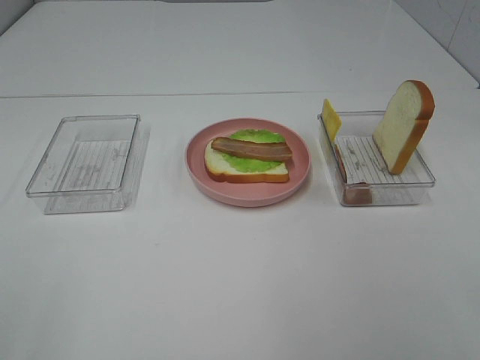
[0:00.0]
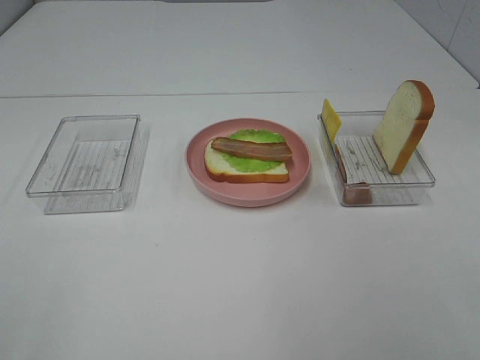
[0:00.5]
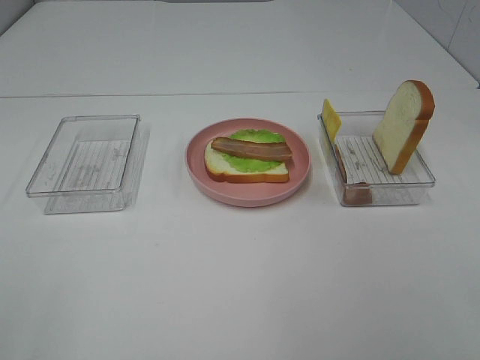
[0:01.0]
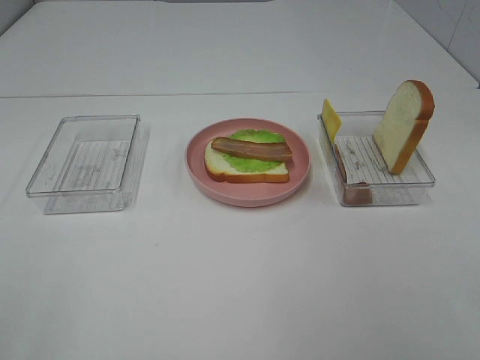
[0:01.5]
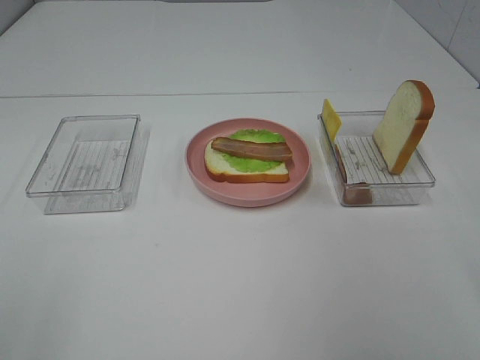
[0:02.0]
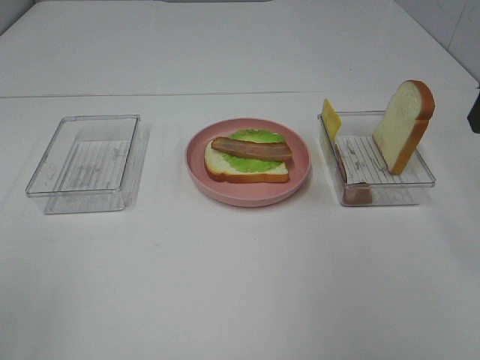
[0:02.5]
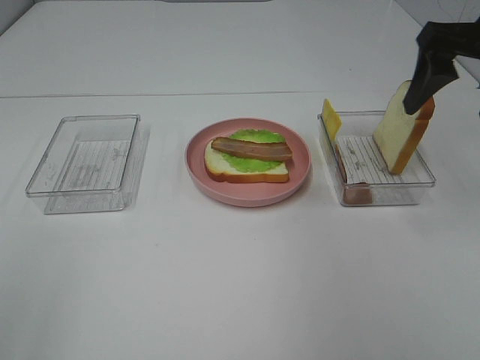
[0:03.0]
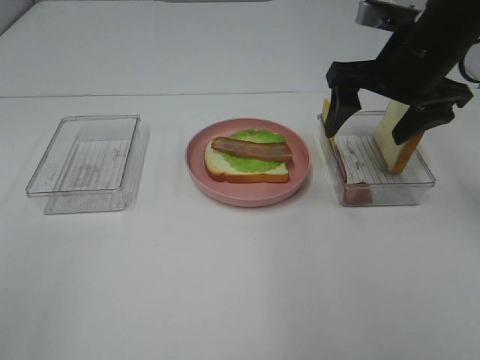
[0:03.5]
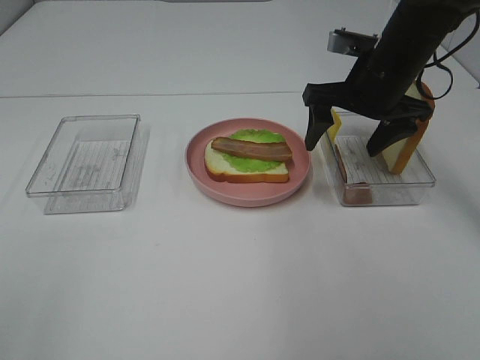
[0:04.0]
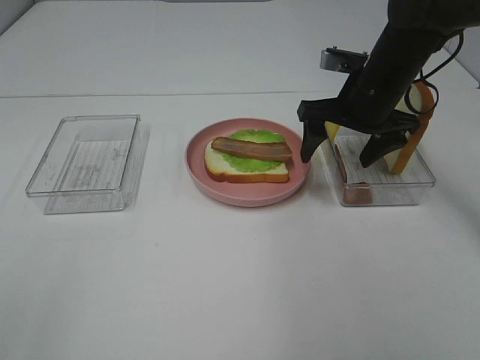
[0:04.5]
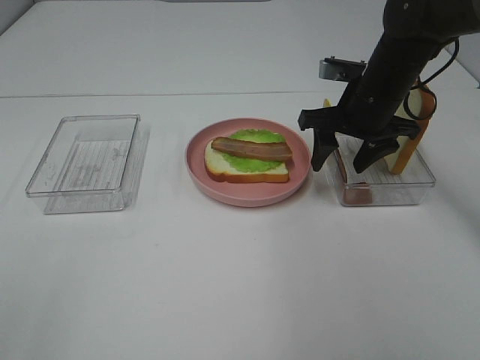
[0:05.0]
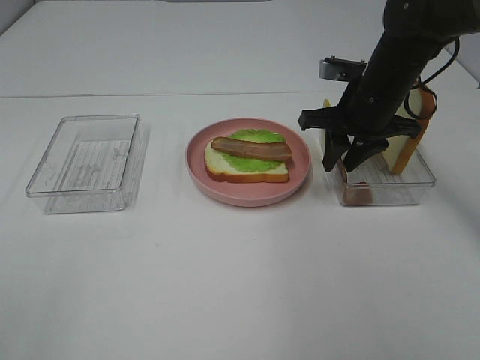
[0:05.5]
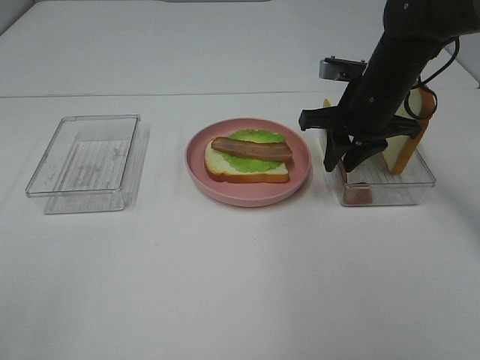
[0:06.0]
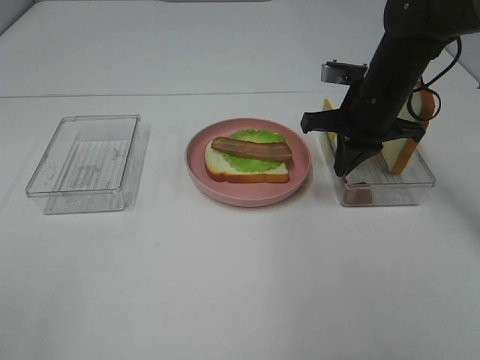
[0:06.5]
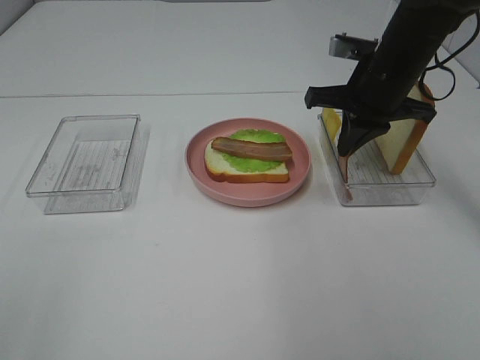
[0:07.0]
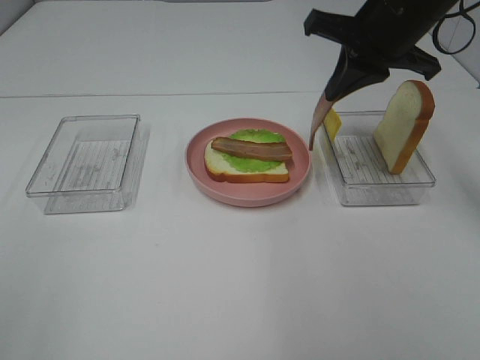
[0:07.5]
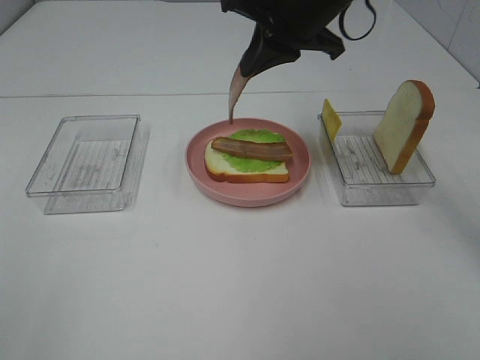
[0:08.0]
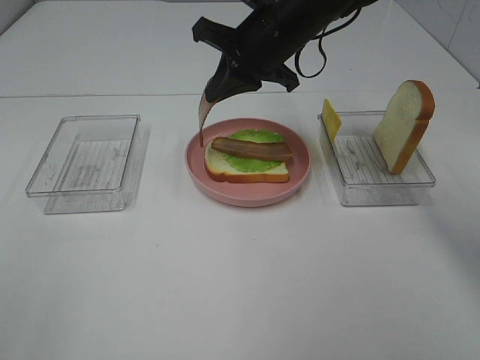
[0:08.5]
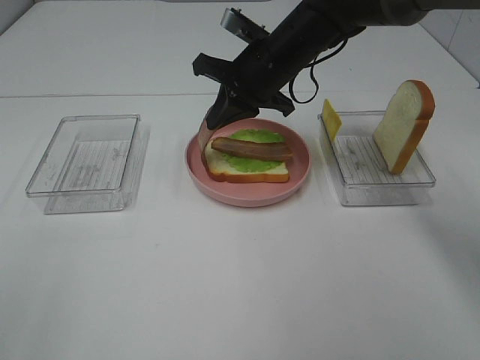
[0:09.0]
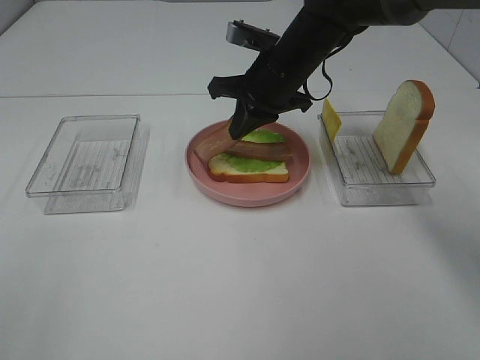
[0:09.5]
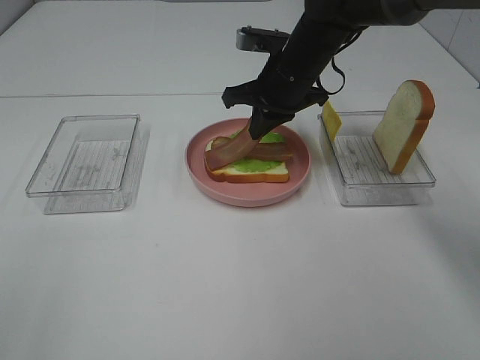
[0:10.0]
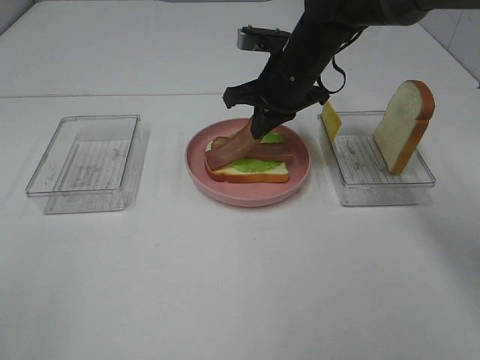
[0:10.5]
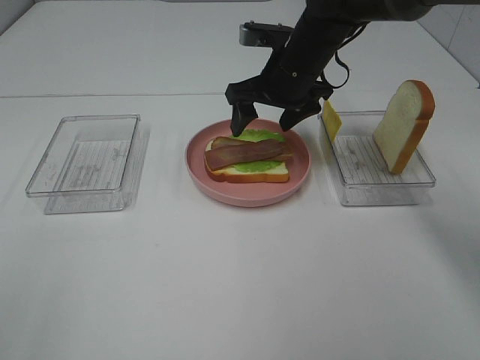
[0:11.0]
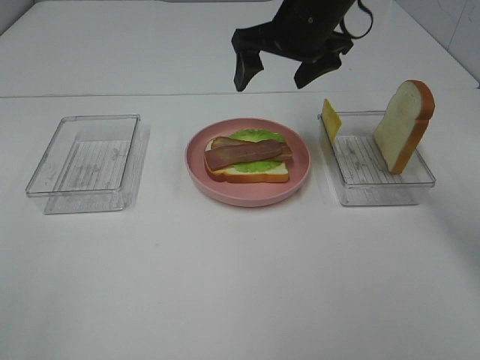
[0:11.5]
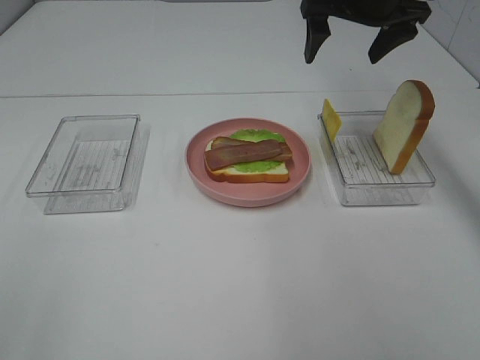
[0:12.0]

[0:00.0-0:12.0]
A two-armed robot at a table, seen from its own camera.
Task of the whole recording: Make sandwiches.
Step, 0:00.0 to 0:06.5: Right hand:grab the bacon.
Step, 0:07.0 to 0:11.0: Right hand:place bacon on bacon.
0:02.0 to 0:04.0: The right gripper goes roughly 30 cm forward, downward and to the left.
0:04.0 to 0:06.0: The right gripper closes.
0:06.0 to 0:08.0: The right gripper heads upward and to the left, covering some 15 cm.
0:08.0 to 0:10.0: The right gripper goes some 10 cm downward.
0:10.0 to 0:12.0: The right gripper is displaced upward and to the right by approximately 15 cm, and opens its fingers.

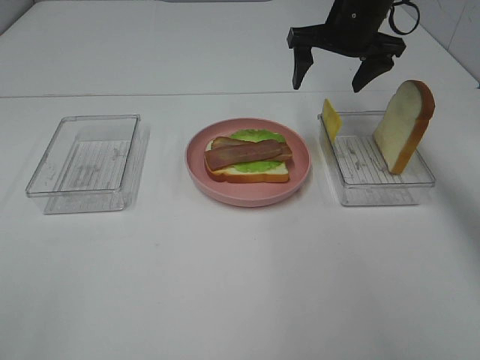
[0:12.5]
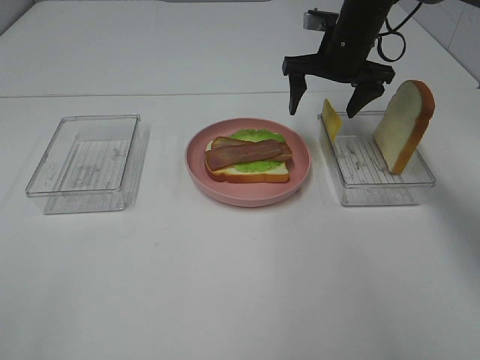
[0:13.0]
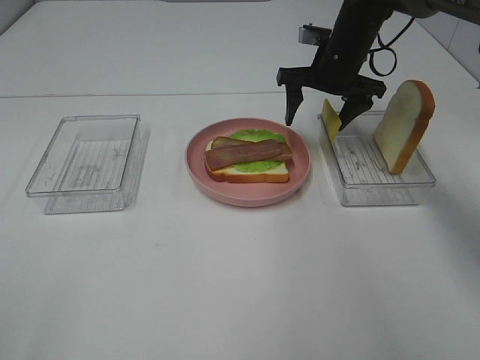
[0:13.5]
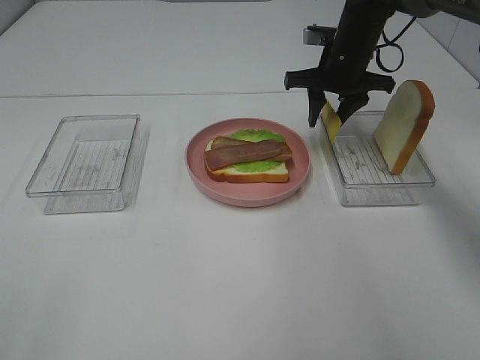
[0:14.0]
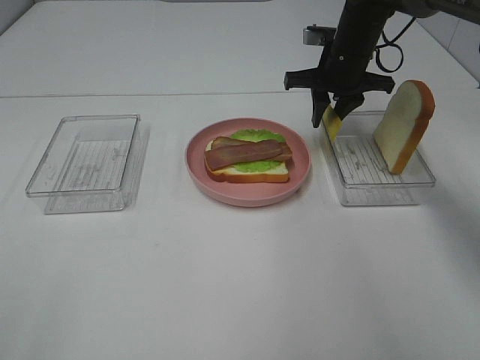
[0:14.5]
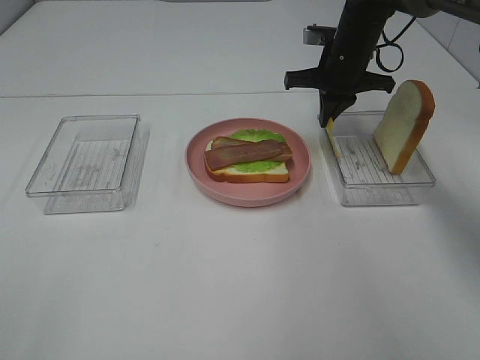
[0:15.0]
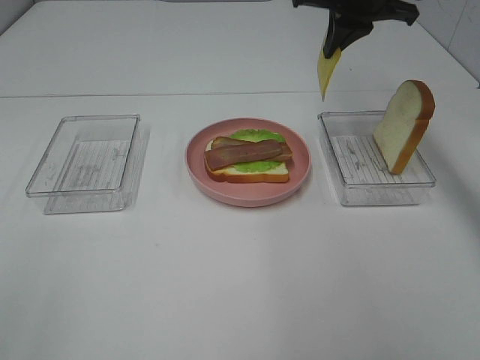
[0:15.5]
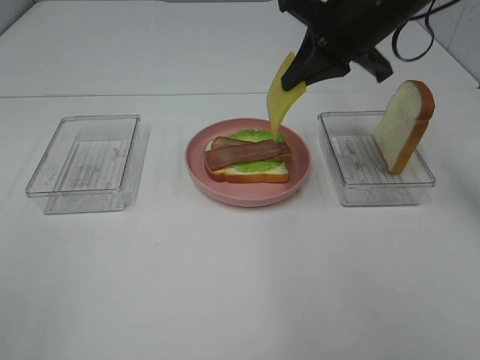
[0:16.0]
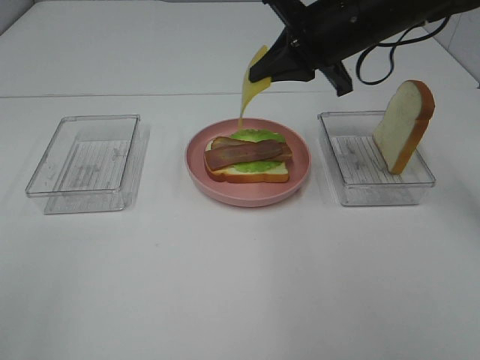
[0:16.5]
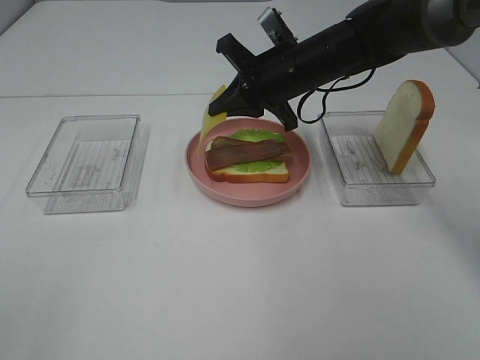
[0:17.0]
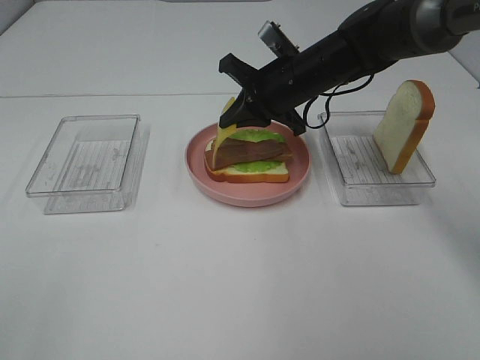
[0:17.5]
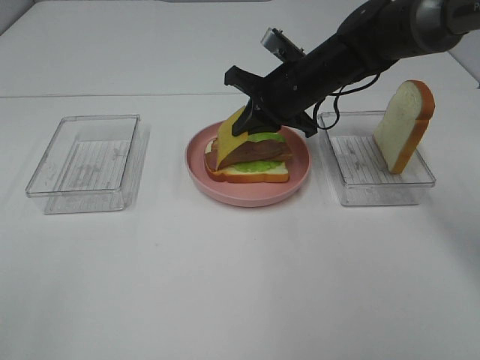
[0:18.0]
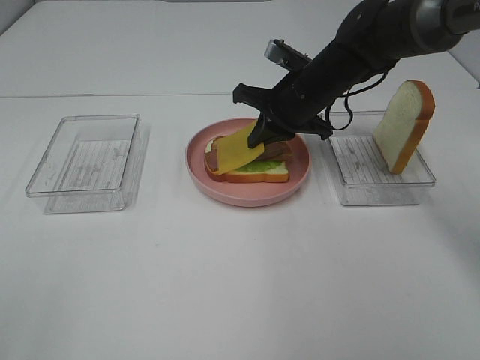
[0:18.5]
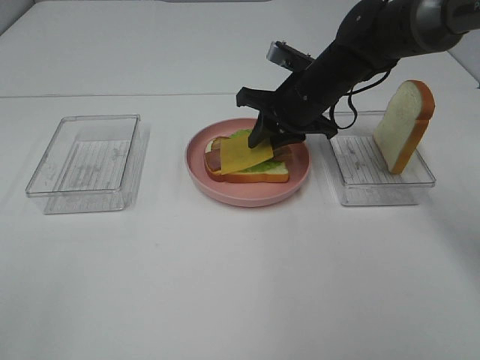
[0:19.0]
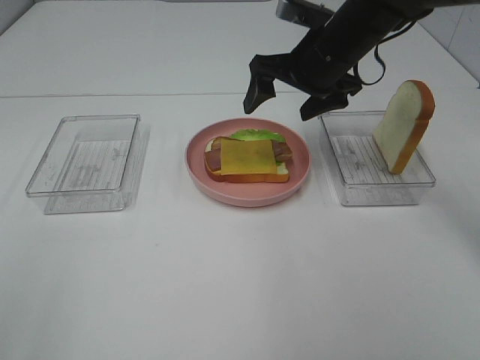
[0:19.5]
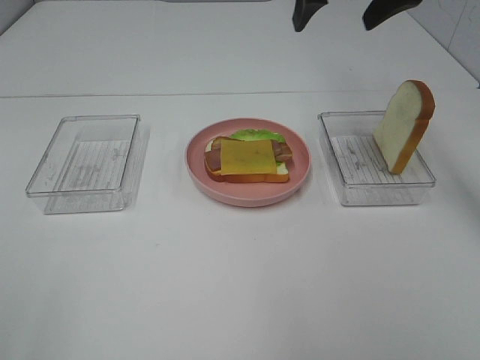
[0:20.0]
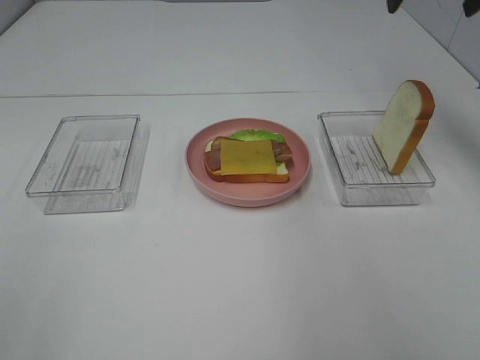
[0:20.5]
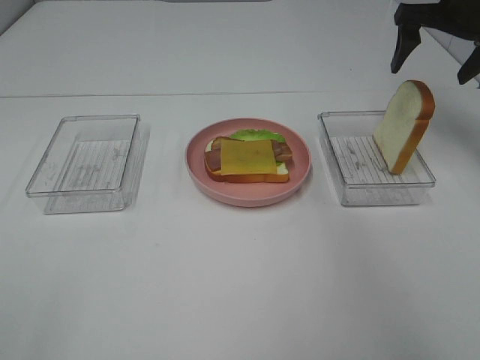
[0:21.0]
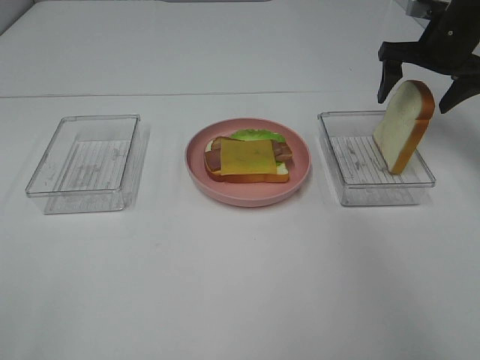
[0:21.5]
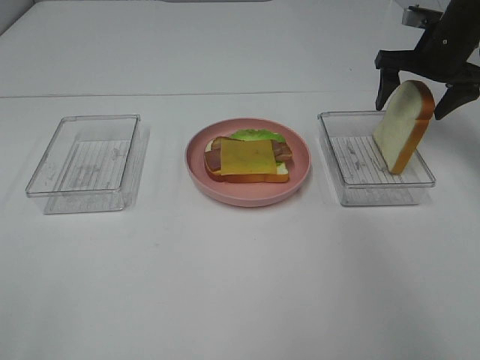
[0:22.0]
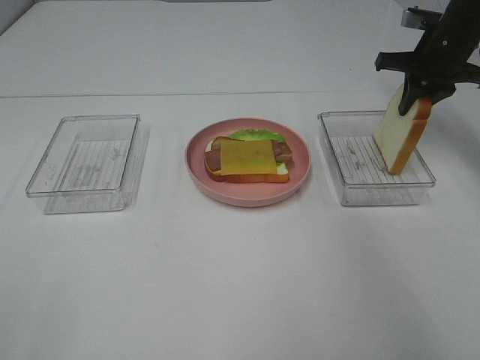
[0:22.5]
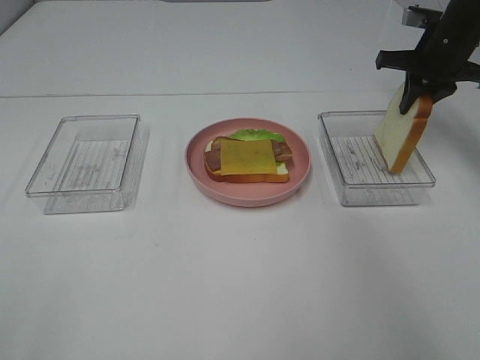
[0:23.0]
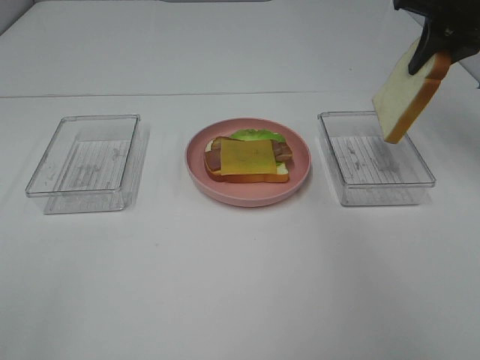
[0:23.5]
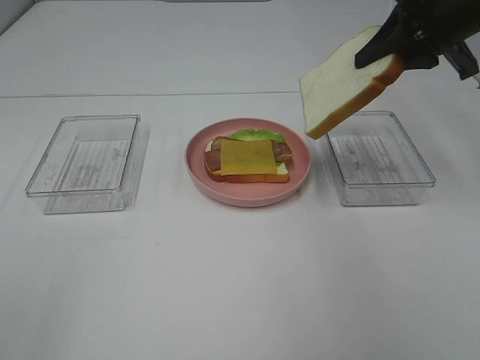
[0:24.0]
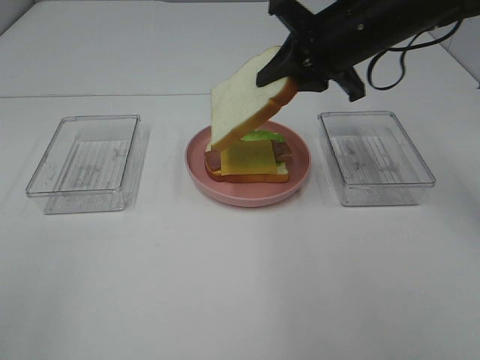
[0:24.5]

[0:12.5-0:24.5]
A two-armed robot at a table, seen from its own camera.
Task of the whole recording: Make sandwiches.
Step, 0:12.5 to 0:15.0: Right hand:grab the cheese slice.
Step, 0:15.5 to 0:19.0: Right hand:place the cheese slice on top of the bacon.
Step, 0:19.5 to 0:22.5: Right hand:grab the bread slice.
0:12.5 to 0:14.5: The right gripper is displaced downward by roughly 5 cm, and closes its fingers.
0:14.5 to 0:16.5: The right gripper goes some 15 cm backward and upward.
0:16.5 to 0:18.5: The right gripper goes approximately 10 cm downward.
0:18.5 to 0:20.5: The right gripper is displaced upward and to the right by some 25 cm, and opens up.
0:20.5 to 0:22.5: The right gripper goes about 15 cm downward, and closes.
0:22.5 to 0:24.5: The right gripper moves to the left and backward, roughly 20 cm.

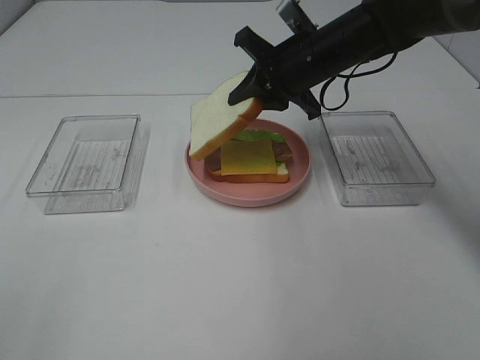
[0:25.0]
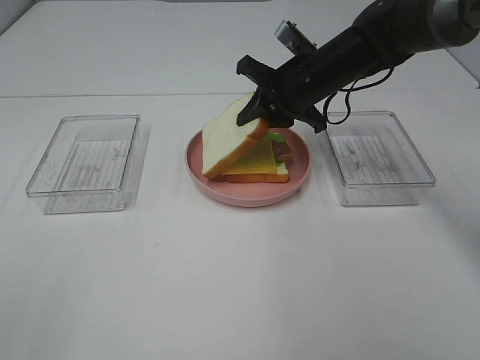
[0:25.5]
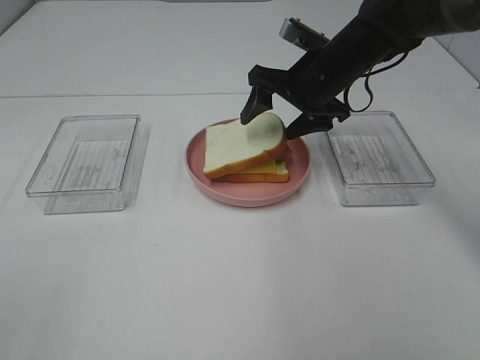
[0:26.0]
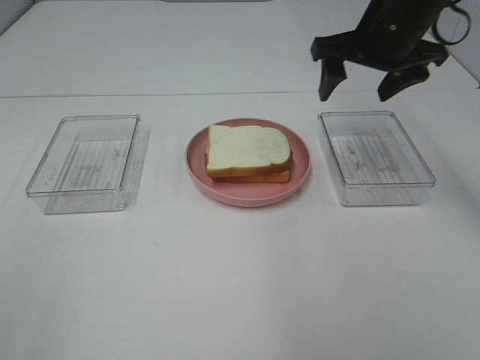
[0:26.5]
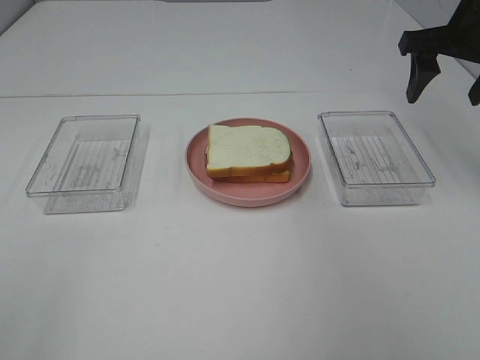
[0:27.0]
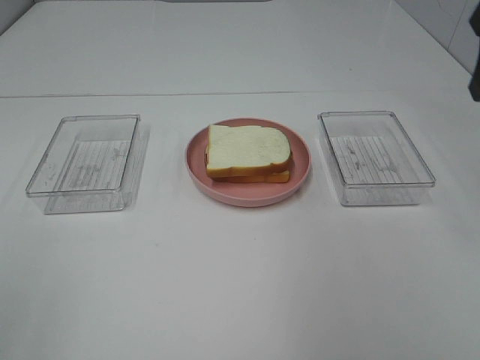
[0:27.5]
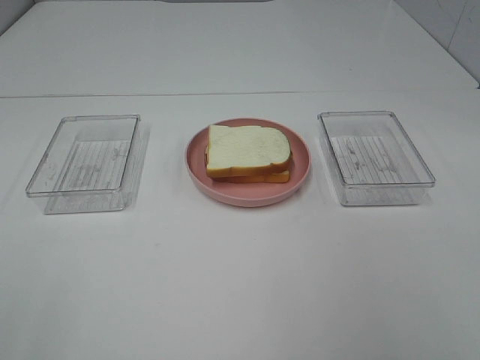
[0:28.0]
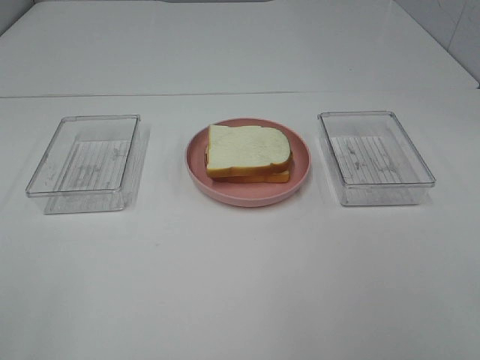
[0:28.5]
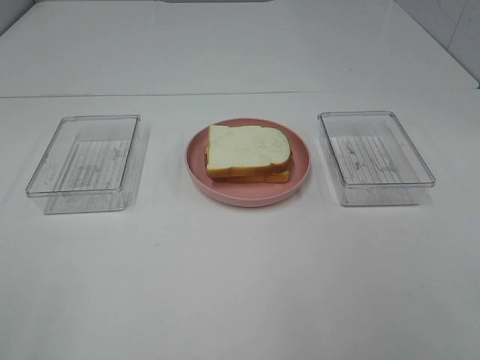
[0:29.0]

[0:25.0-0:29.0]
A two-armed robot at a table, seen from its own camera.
Task of the whole recording: Make sandwiches.
0:25.0 to 0:27.0: The right gripper travels to the right and upward by about 20 cm, and opens up.
0:27.0 to 0:29.0: The right gripper heads backward, covering about 40 cm.
